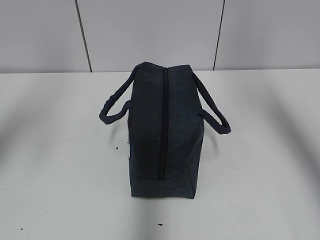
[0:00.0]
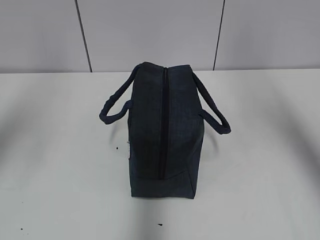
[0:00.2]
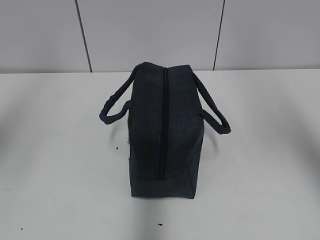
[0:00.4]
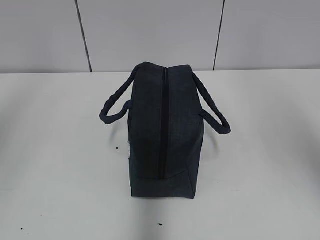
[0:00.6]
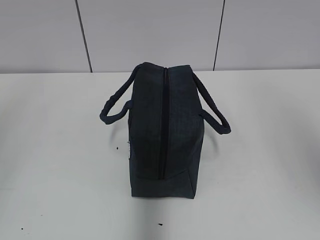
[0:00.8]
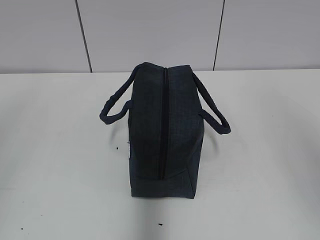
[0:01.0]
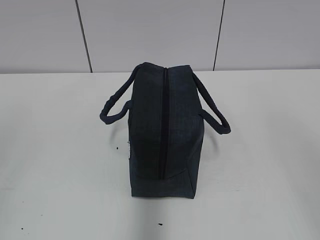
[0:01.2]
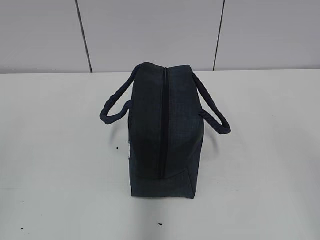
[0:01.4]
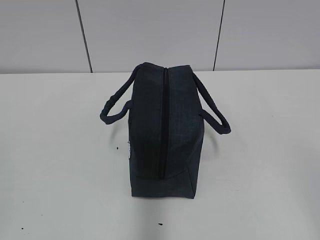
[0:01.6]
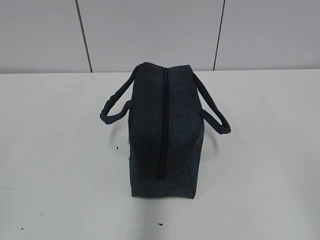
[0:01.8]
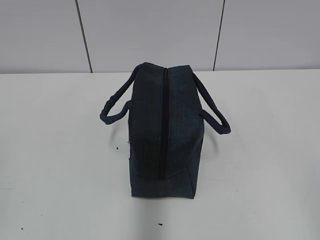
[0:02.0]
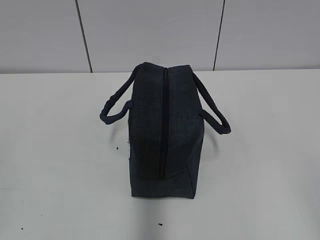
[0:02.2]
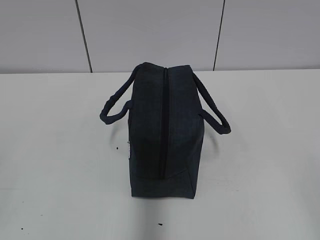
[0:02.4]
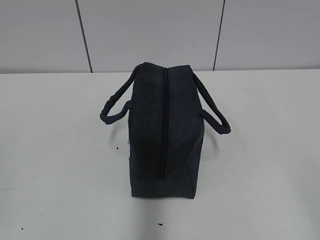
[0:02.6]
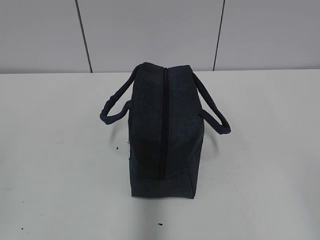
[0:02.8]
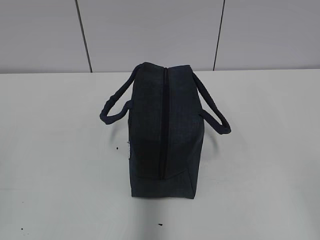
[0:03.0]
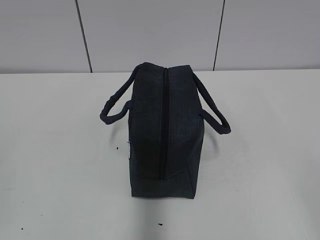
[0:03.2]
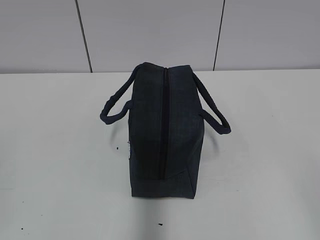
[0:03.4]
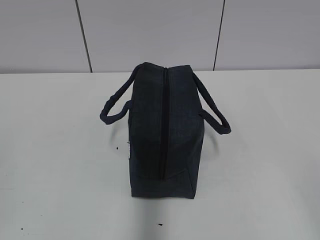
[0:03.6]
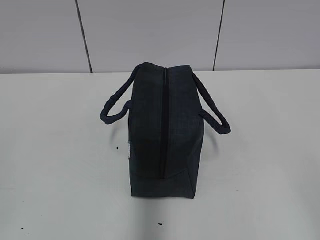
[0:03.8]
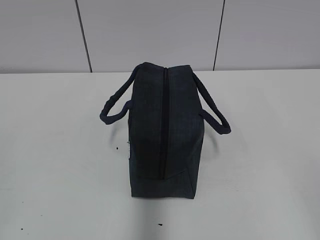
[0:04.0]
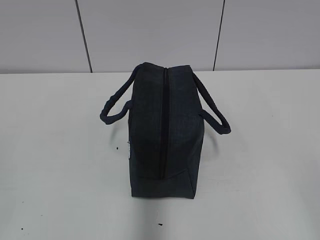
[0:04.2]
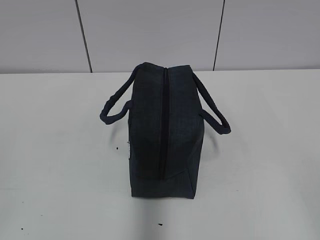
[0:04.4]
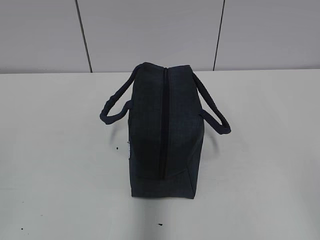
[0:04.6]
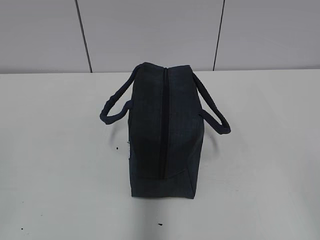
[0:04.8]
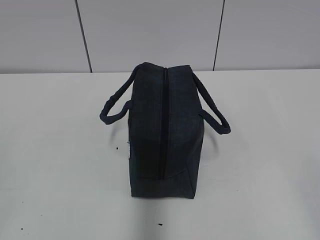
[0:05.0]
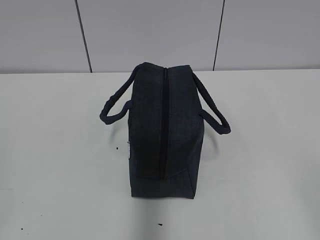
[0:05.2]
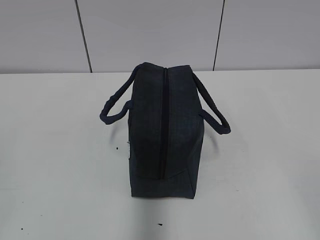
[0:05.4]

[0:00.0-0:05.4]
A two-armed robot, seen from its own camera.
0.0 to 1.4 s: The grippers both shift backward by some 30 cm.
4.0 to 5.4 s: The two grippers keep their place.

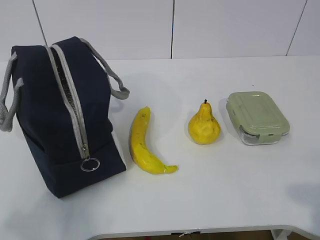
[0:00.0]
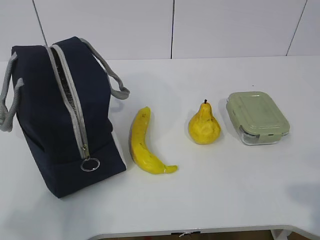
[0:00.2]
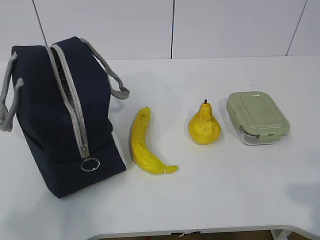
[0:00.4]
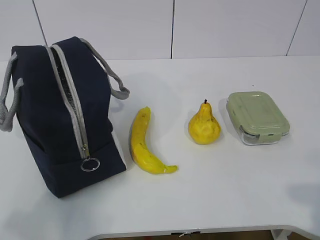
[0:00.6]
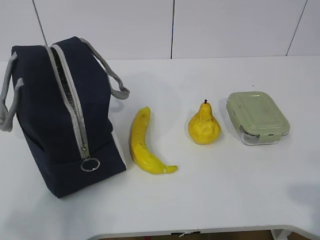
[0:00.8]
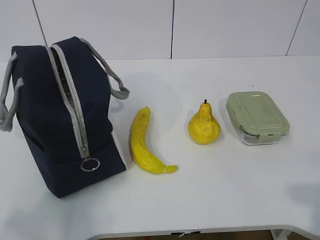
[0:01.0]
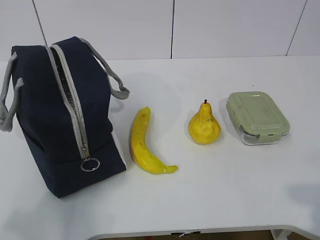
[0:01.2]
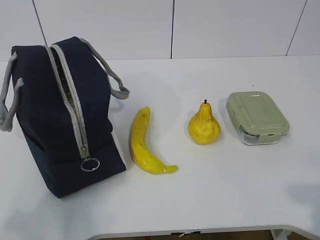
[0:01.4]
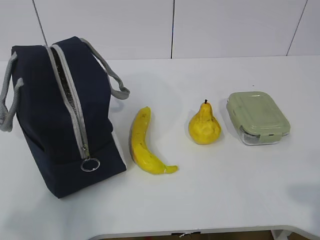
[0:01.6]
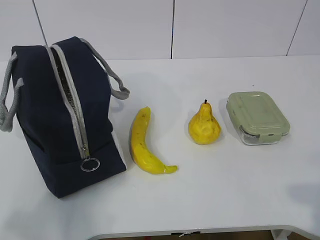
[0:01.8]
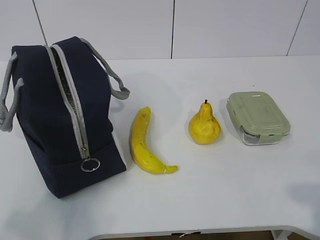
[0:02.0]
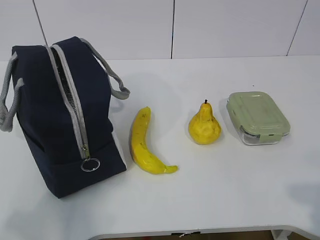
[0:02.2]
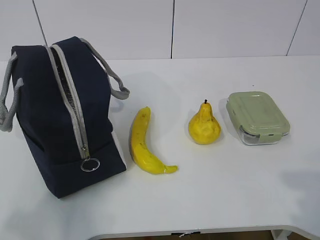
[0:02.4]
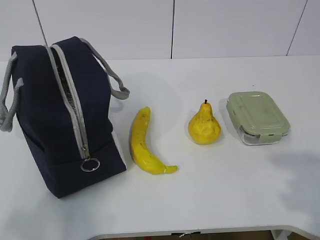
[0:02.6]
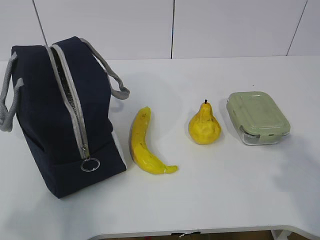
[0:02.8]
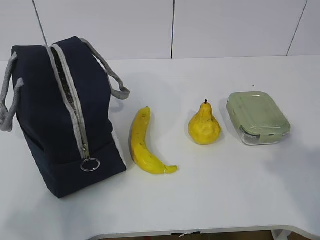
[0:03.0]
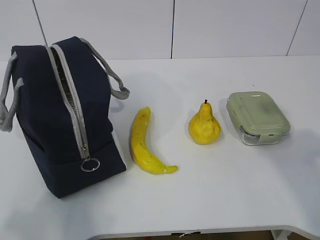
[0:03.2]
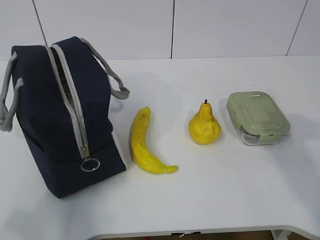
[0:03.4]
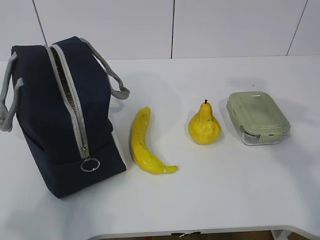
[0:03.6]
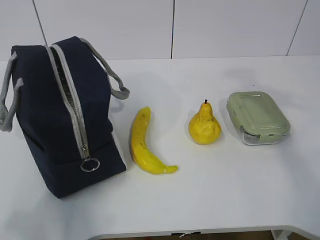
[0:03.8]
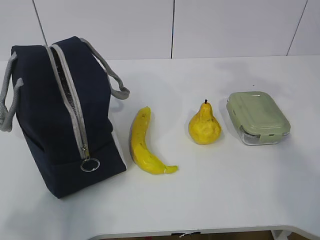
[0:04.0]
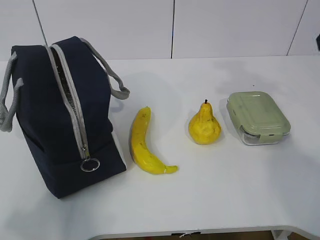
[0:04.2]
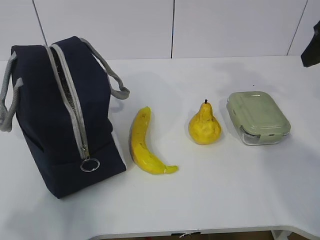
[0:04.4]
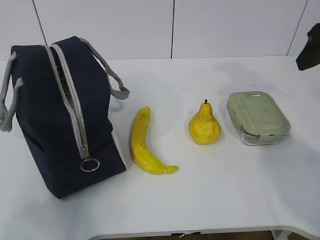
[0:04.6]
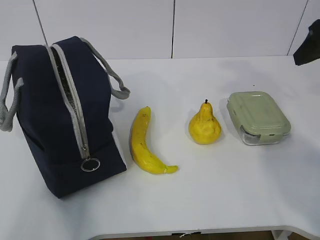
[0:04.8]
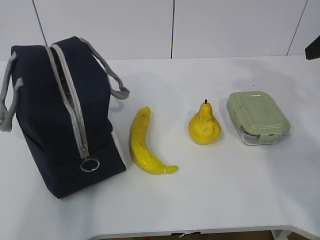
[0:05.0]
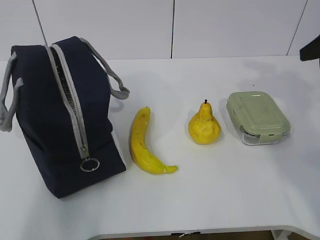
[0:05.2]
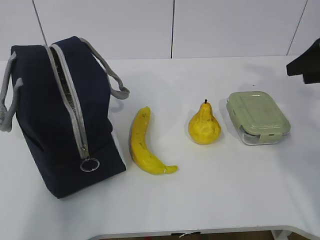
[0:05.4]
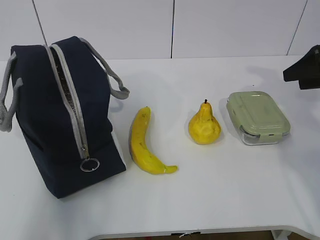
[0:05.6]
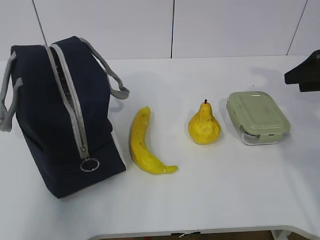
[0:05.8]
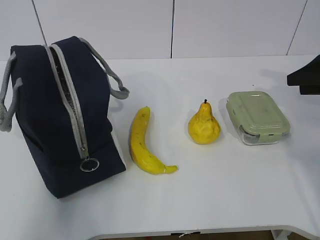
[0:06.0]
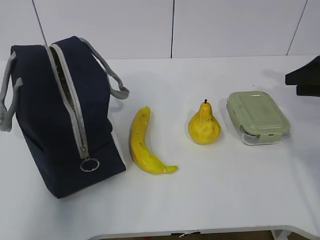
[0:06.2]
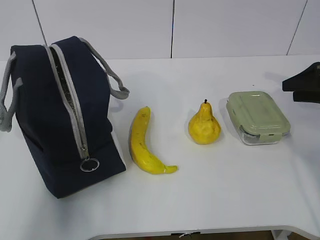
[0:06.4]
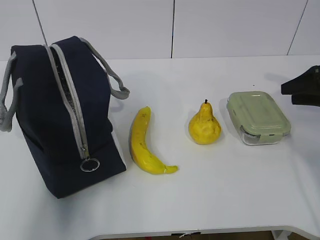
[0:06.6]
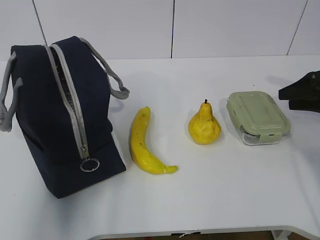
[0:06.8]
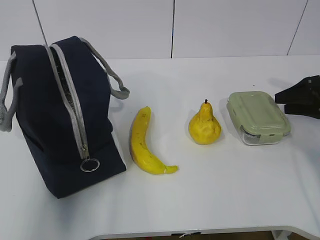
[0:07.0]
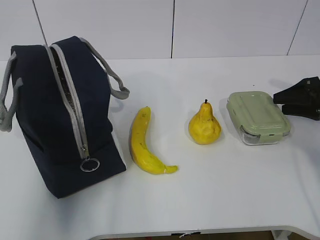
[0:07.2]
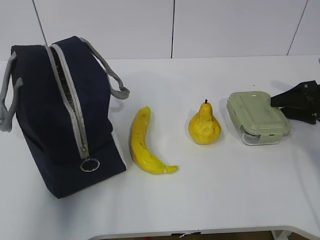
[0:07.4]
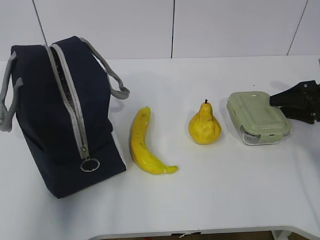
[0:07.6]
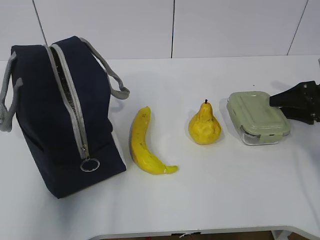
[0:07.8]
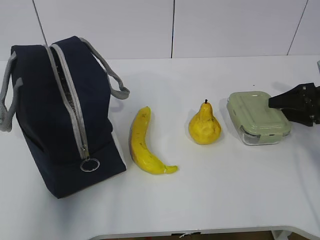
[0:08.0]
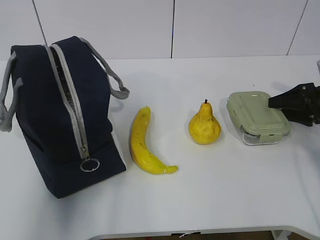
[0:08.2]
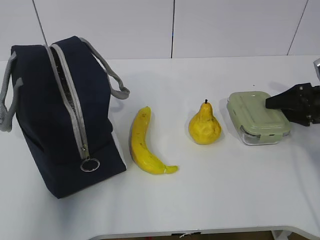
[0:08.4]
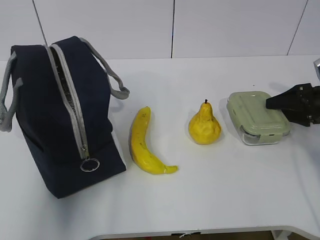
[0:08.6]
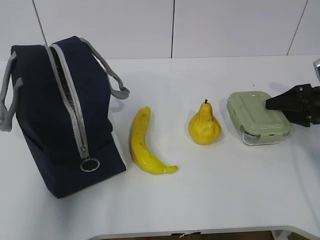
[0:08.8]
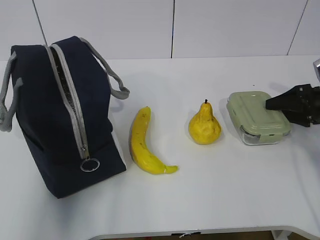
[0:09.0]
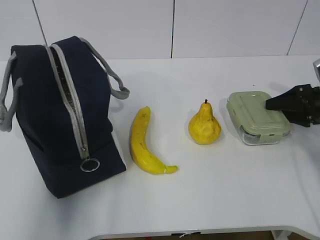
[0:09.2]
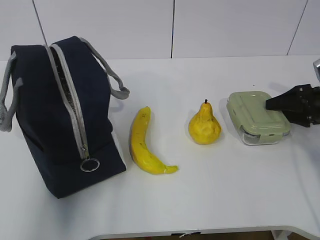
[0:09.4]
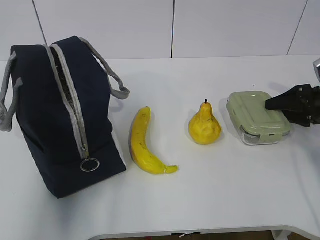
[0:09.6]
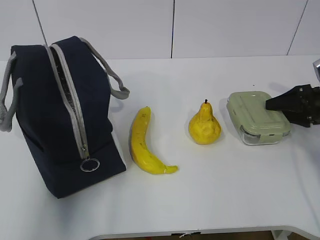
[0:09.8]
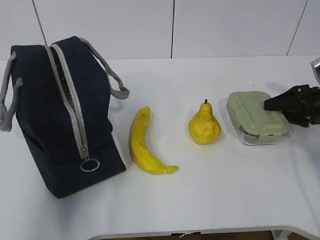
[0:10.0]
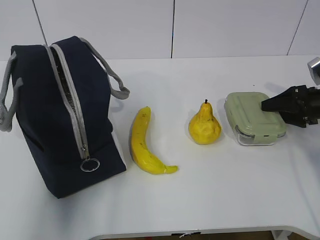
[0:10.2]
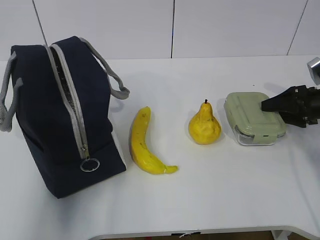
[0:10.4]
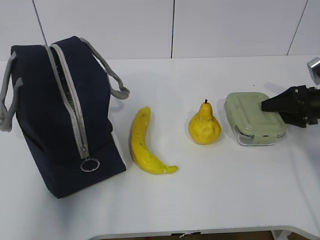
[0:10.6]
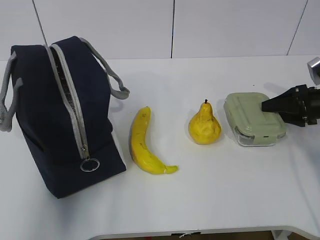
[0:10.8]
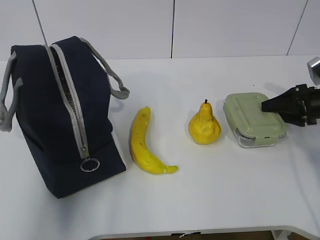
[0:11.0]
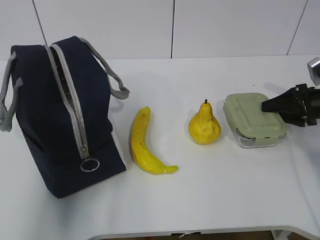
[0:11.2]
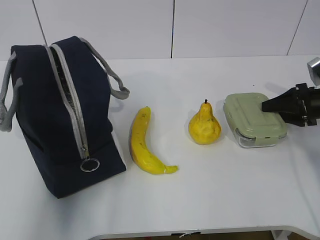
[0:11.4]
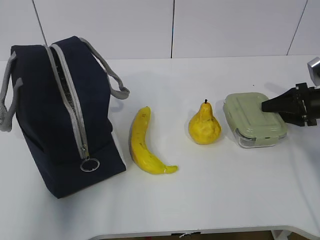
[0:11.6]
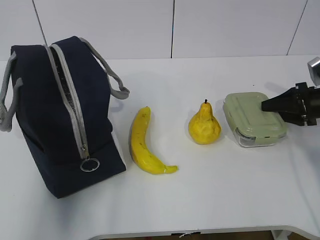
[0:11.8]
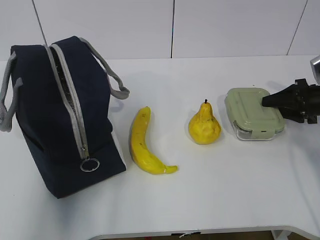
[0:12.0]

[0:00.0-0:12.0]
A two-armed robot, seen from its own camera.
Step, 0.0 to 10.8 s: Grasp the box with the right gripper.
1.6 to 3.0 s: The right gripper heads forward and upward, covering roughly 10 cm.
3.0 to 4.4 s: The right gripper is displaced forward by some 25 cm.
4.4 to 6.0 s: The left gripper is displaced forward and upward by some 15 cm. The right gripper goes about 20 cm downward, to the right and forward.
6.0 to 7.6 s: The left gripper travels forward by about 10 cm; the right gripper travels downward by roughly 10 cm.
7.6 to 9.0 s: Both grippers stay about where they are.
9.0 to 10.4 s: Both grippers stay put.
10.4 to 12.0 s: There are only small adjustments of the grippers.

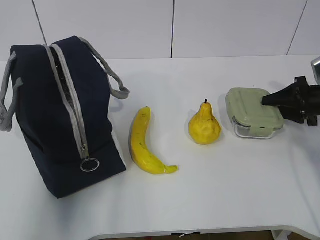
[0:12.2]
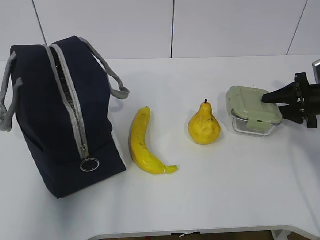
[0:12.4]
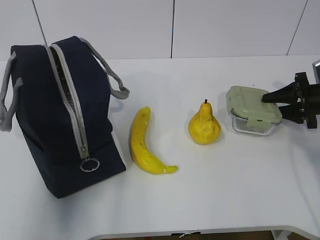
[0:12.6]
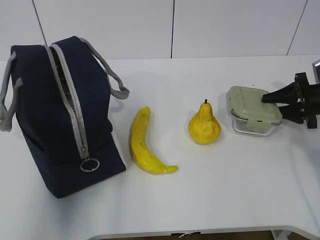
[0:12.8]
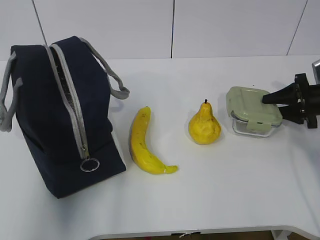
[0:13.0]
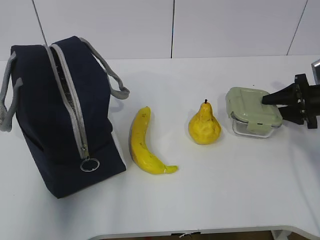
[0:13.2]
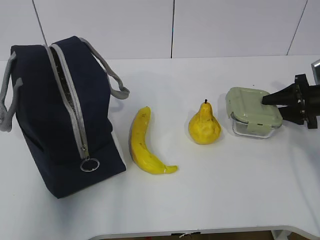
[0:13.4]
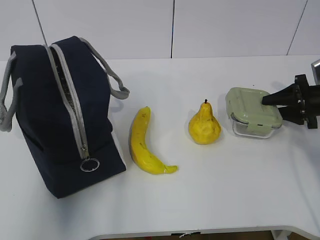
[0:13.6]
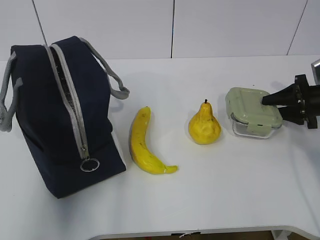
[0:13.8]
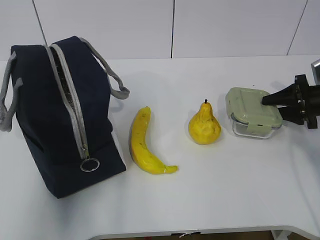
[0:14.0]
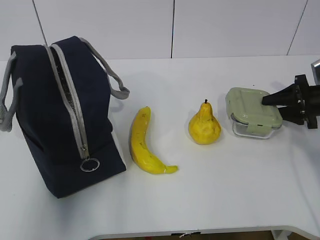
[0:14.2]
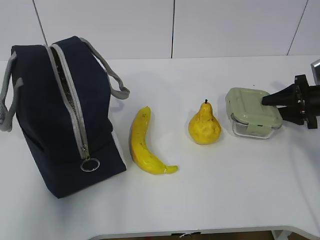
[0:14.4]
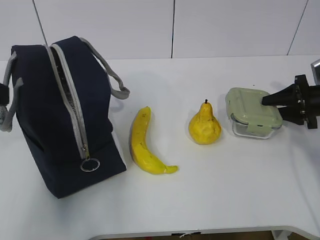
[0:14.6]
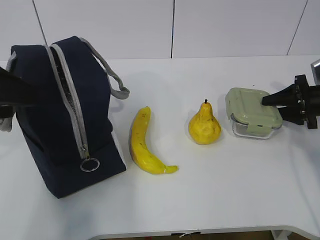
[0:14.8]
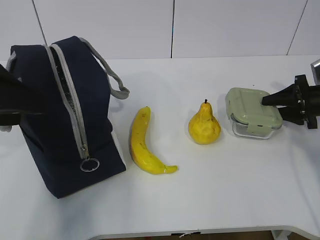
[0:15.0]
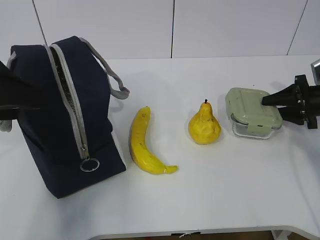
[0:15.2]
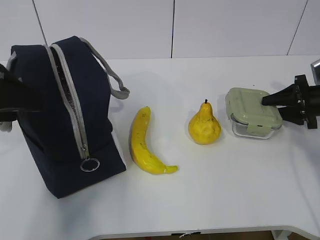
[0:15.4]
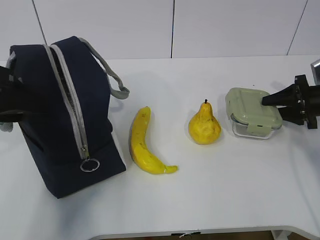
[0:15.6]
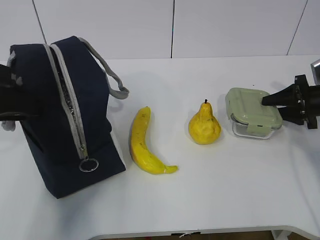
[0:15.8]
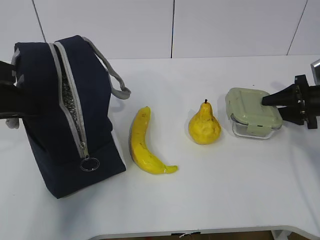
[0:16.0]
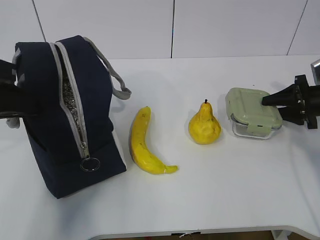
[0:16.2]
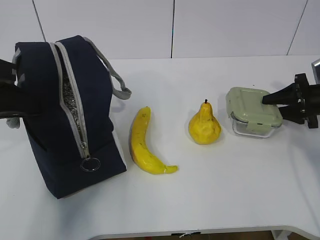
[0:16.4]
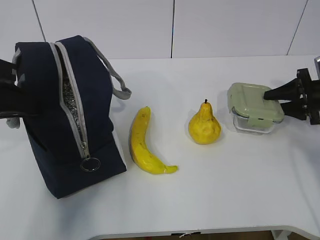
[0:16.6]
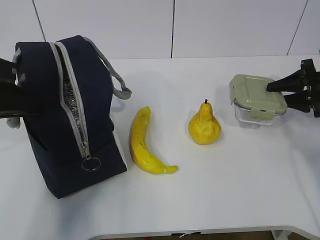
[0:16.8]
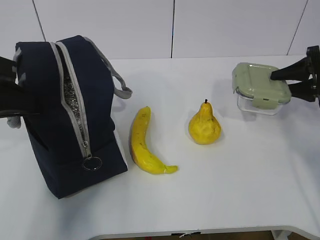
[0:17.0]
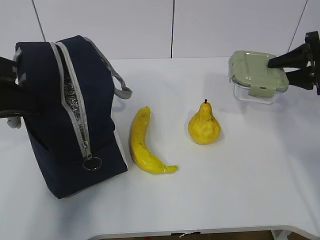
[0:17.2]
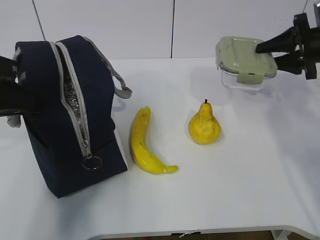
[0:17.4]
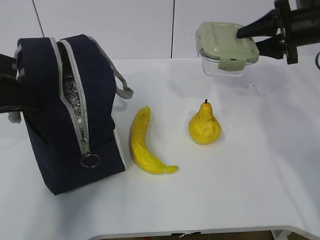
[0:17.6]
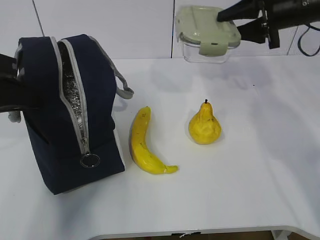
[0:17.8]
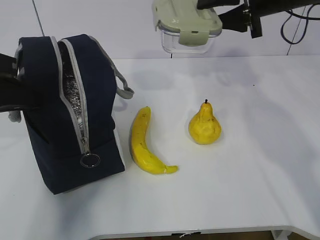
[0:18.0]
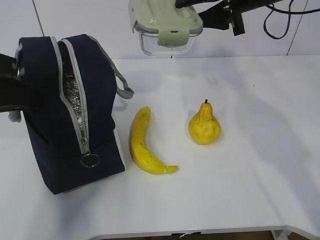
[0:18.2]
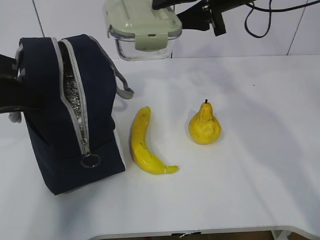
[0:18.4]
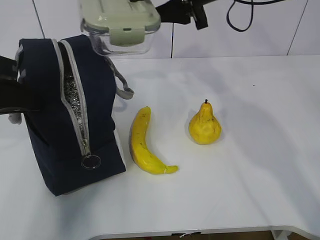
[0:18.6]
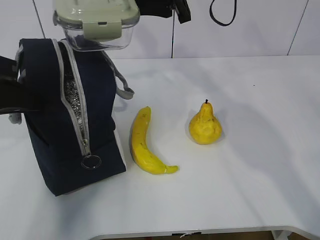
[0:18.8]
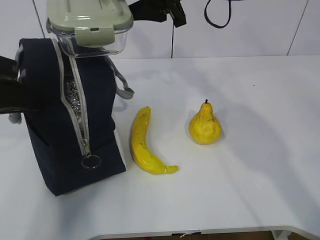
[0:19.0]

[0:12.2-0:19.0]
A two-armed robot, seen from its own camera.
Step, 12.2 to 16.0 s: Grasp the package with the left gripper.
13.6 to 15.0 s: The left gripper goes about 10 cm downward and to the right, and opens its fingers.
15.0 to 16.2 s: The left gripper closes its fingers.
16.2 to 17.6 s: The right gripper goes roughly 15 cm upward and to the left.
17.6 to 19.0 s: The right gripper moves to the left and upward, some 25 cm.
